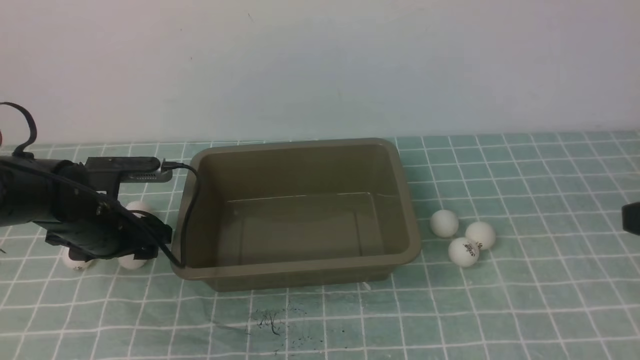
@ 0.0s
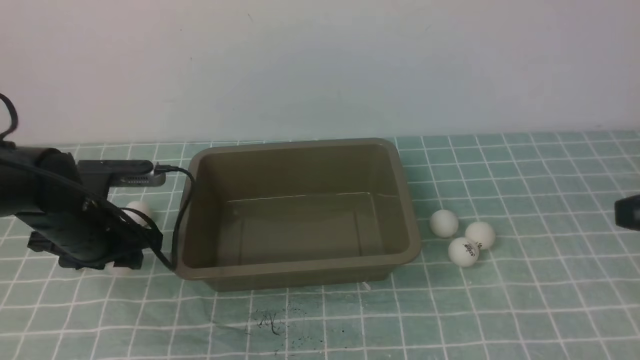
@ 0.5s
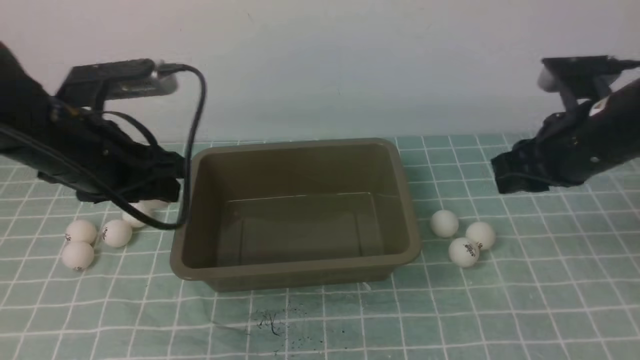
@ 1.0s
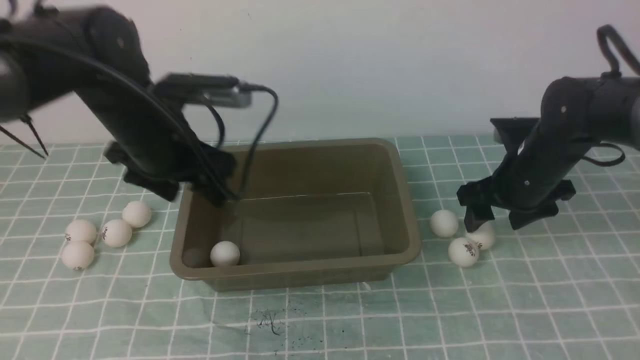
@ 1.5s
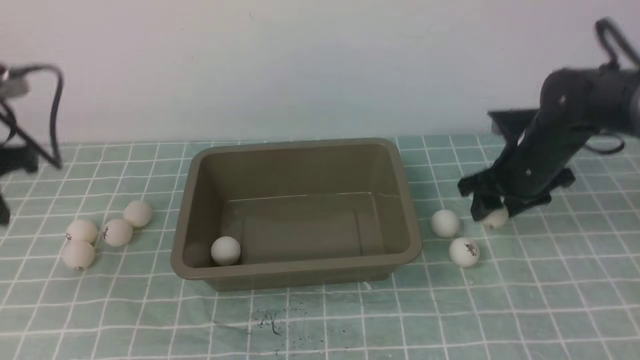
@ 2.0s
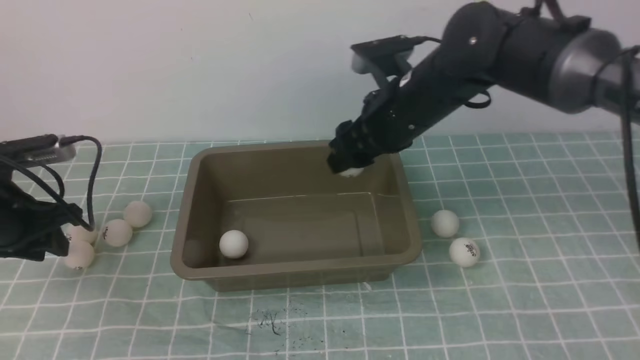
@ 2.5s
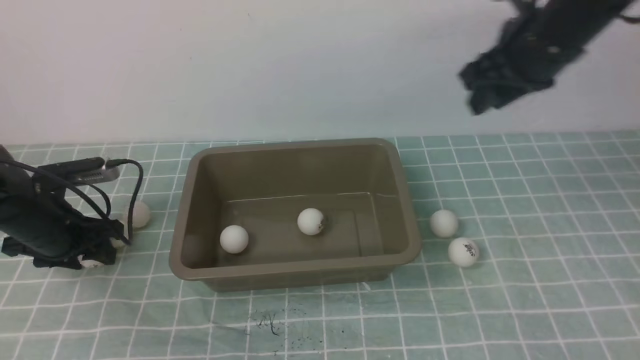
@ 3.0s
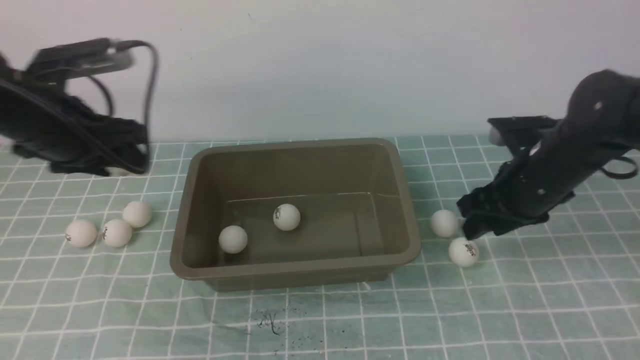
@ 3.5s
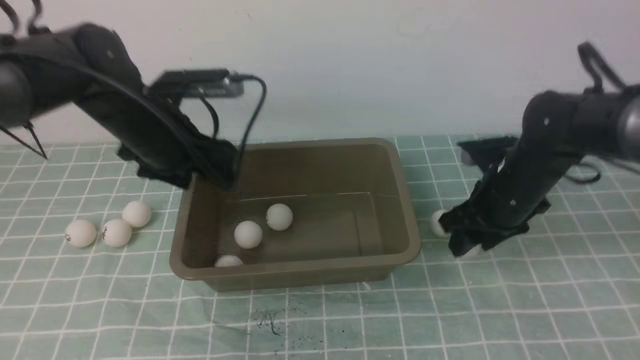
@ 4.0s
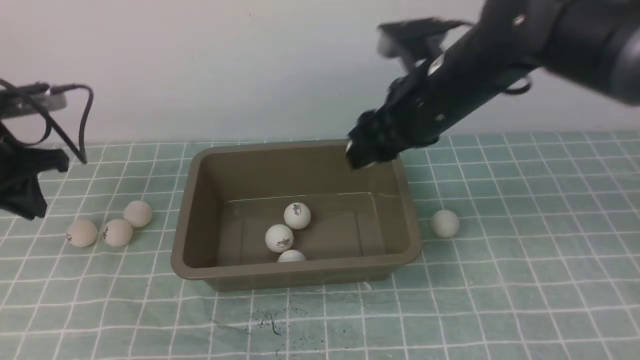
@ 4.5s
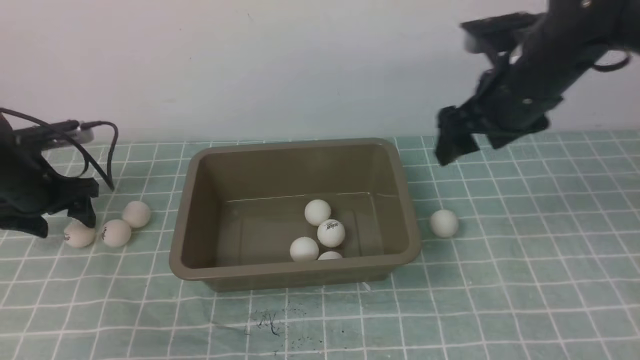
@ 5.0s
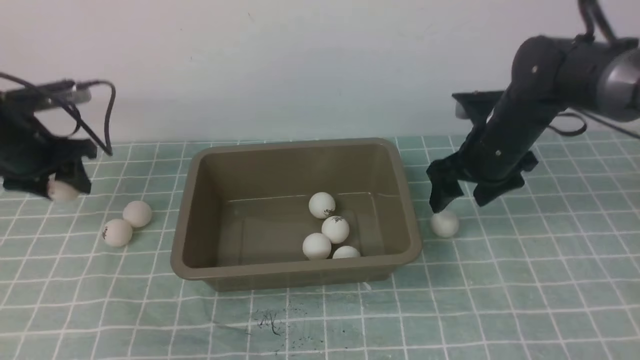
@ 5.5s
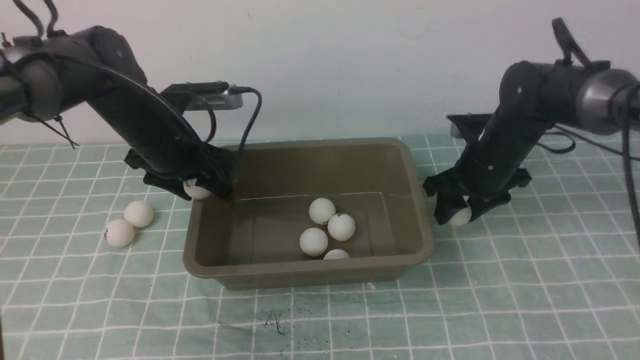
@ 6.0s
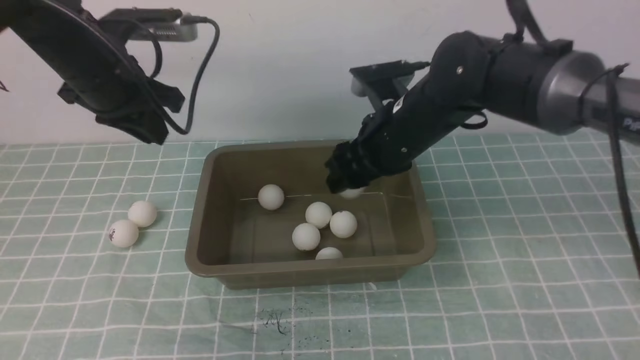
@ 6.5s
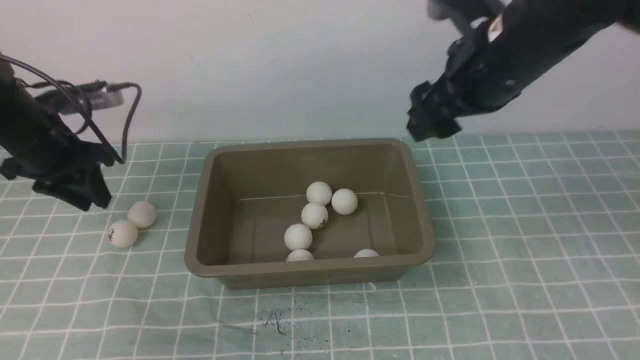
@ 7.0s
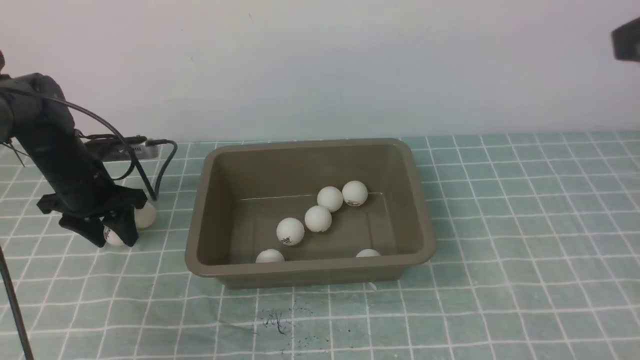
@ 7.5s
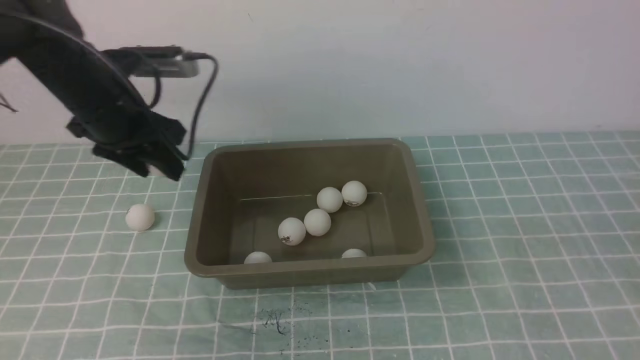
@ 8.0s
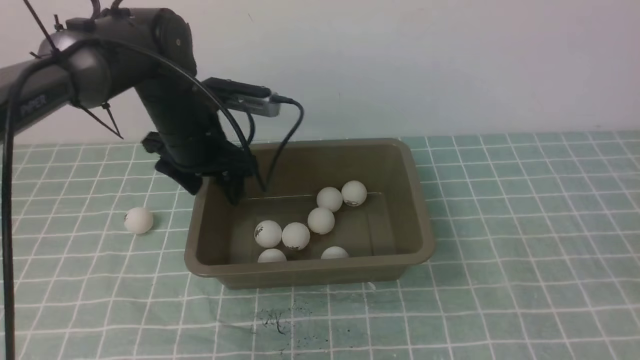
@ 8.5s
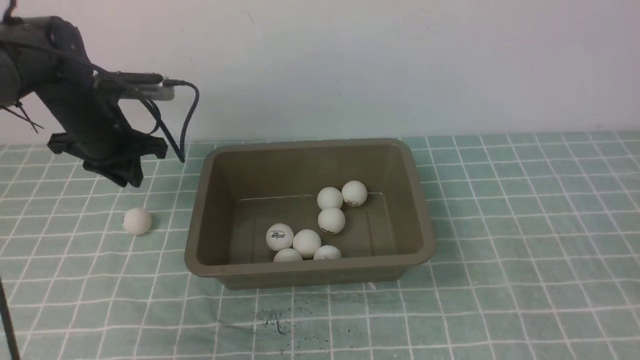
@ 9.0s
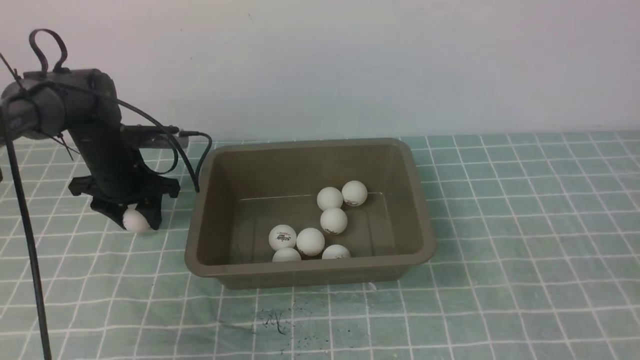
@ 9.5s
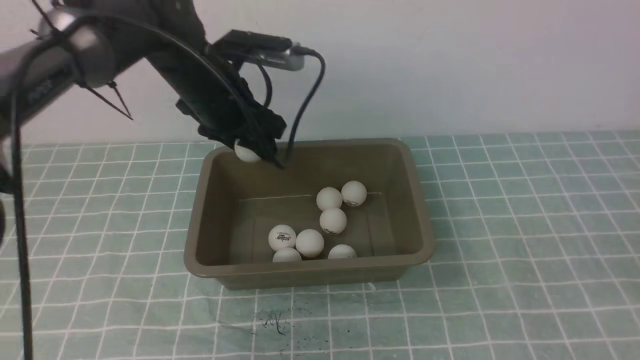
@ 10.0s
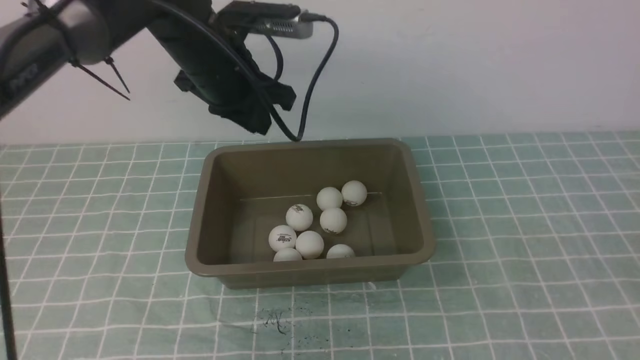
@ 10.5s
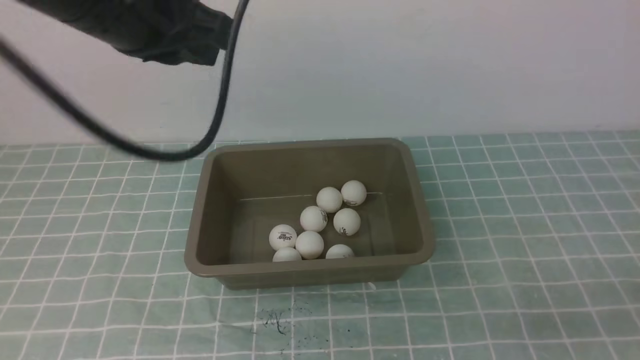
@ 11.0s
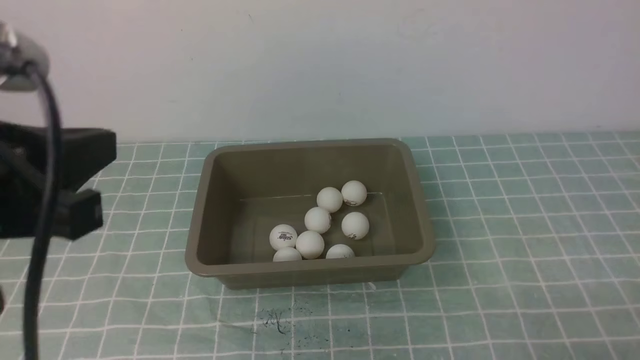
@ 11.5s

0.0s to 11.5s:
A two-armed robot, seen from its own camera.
Step, 1.5s to 2.0s: use the right arm to clamp the table tennis ball closest to it.
Step, 3.5s to 4.0s: use the left arm to put the table tennis ball into the box.
Step, 4.5s to 5.0s: use the right arm to put the table tennis ball into the box.
Step, 7.0s to 7.5s: use the left arm to clamp the table tennis ball closest to it.
Step, 9.0s to 9.5s: use the left arm to clamp the table tennis ball closest to it.
Step, 10.0s to 10.5s: use the left arm to put the table tennis ball into the box.
0.0s to 2.0s: The left gripper heads upward and to the left, covering some 15 cm, and closes up, while the right gripper moves forward and downward, approximately 25 cm, and opens up.
2.0s to 4.0s: The right gripper travels to the left and back again, some 10 cm each way. The left gripper travels to the right and forward by some 15 cm, and opens up.
4.0s to 6.0s: The left gripper reaches roughly 15 cm to the left, then returns, and closes and opens again. Meanwhile the right gripper travels upward and back again, about 10 cm each way.
6.0s to 7.5s: The right gripper moves backward and upward, some 30 cm, and closes up. The left gripper heads to the left and downward, covering about 10 cm, and closes, then reopens.
7.5s to 9.5s: The left gripper travels to the right by some 5 cm. Meanwhile the right gripper moves downward and backward, roughly 20 cm.
9.5s to 11.5s: The left gripper heads backward and upward, covering approximately 35 cm, and closes, while the right gripper moves downward, roughly 10 cm.

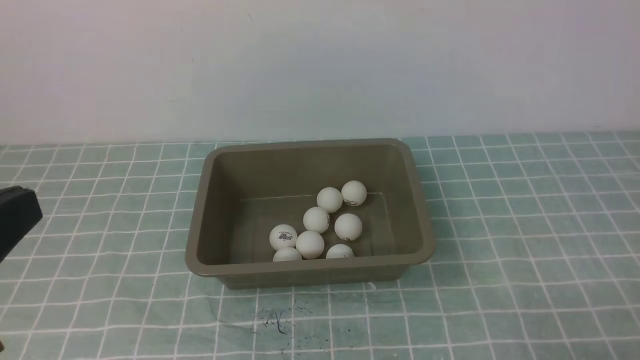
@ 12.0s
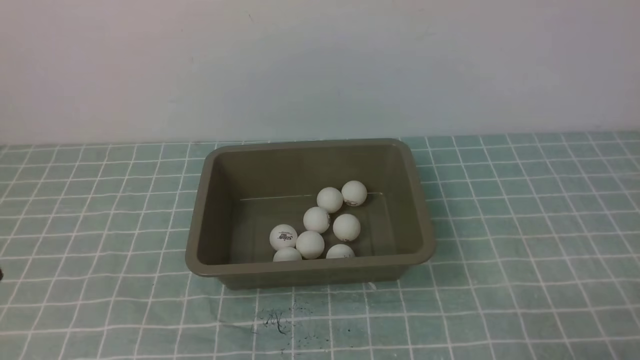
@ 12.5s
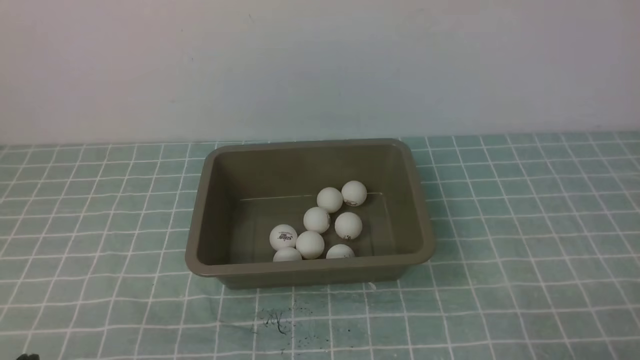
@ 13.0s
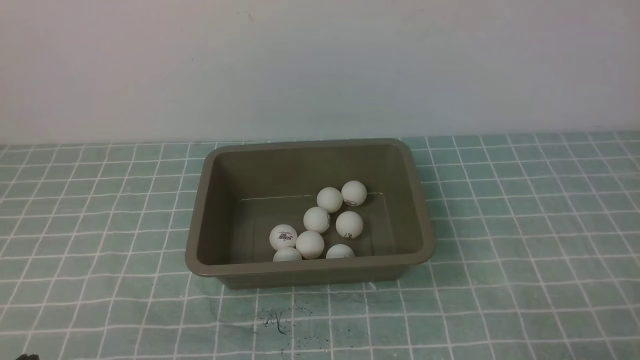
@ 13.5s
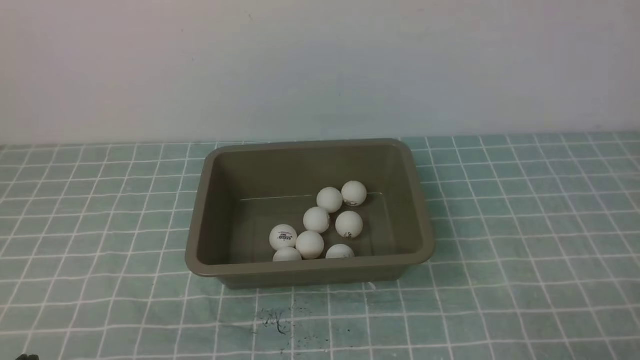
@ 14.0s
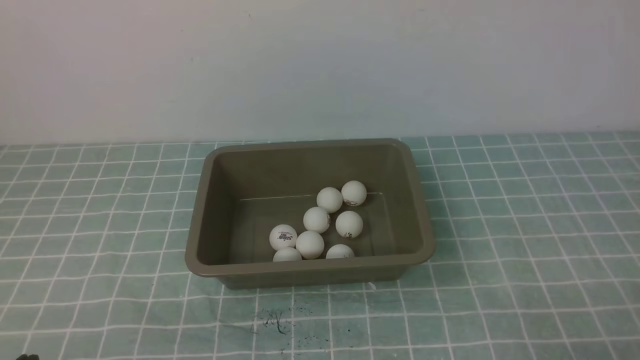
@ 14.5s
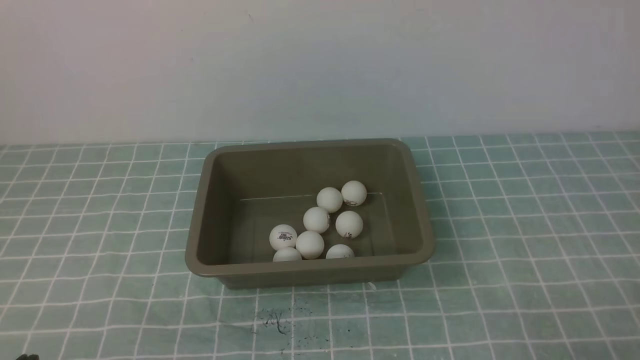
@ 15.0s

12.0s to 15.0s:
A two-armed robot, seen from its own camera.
12.0s to 13.5s: The left gripper goes approximately 20 cm downward.
